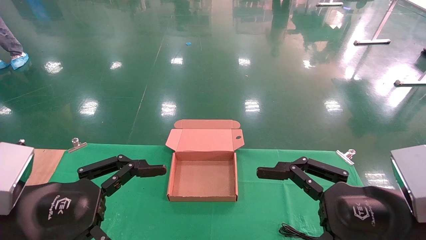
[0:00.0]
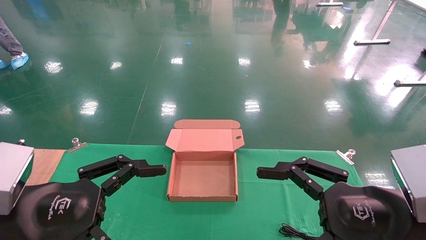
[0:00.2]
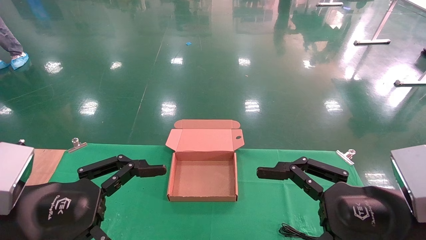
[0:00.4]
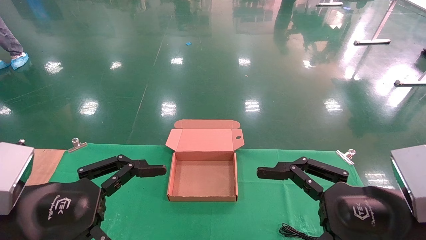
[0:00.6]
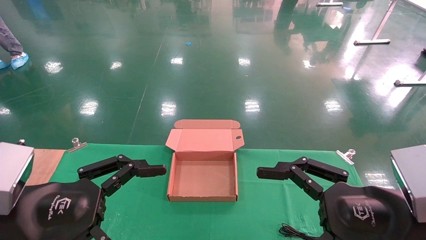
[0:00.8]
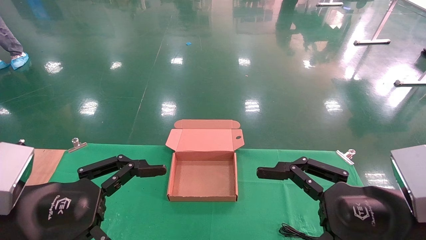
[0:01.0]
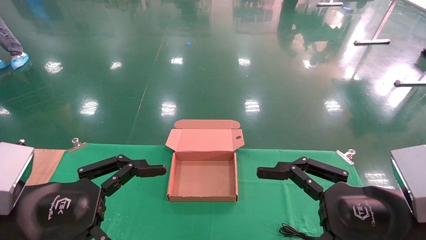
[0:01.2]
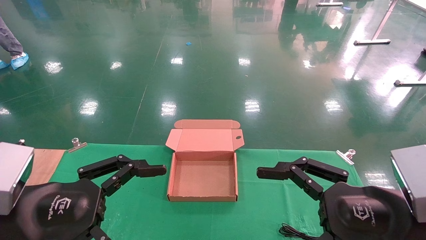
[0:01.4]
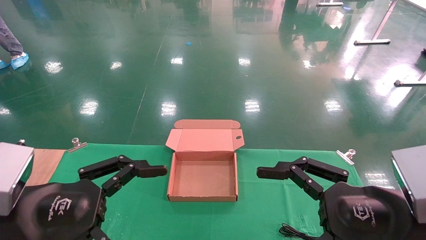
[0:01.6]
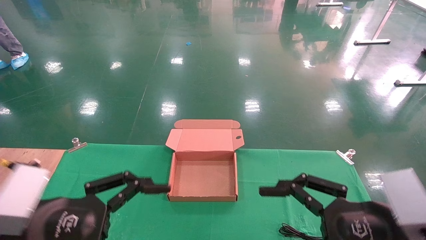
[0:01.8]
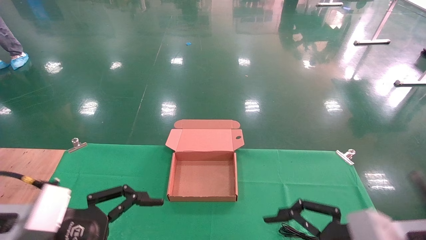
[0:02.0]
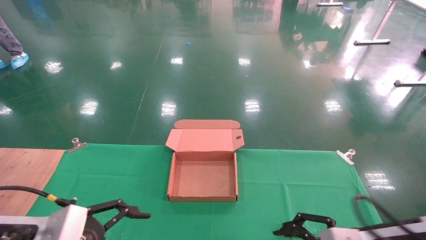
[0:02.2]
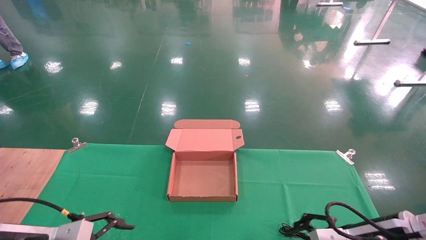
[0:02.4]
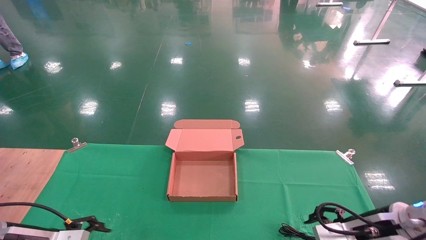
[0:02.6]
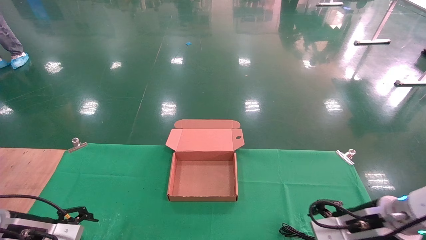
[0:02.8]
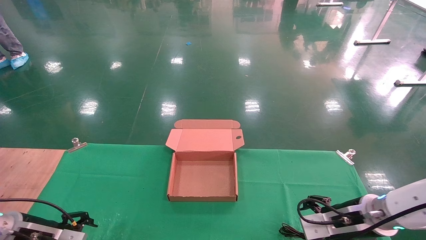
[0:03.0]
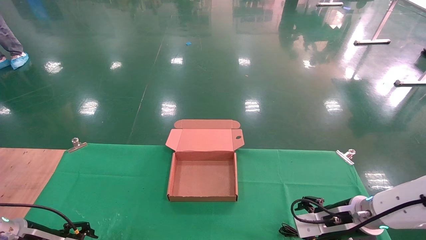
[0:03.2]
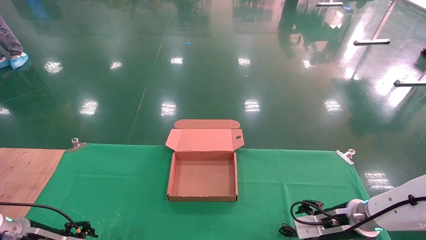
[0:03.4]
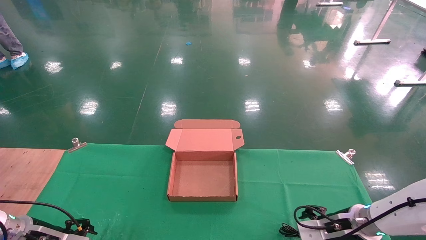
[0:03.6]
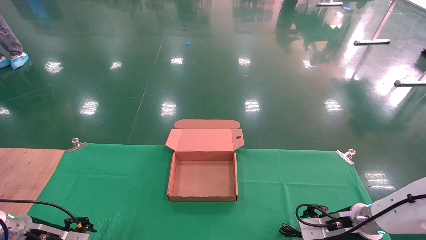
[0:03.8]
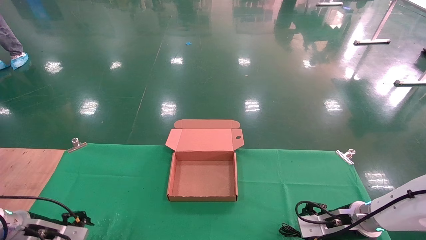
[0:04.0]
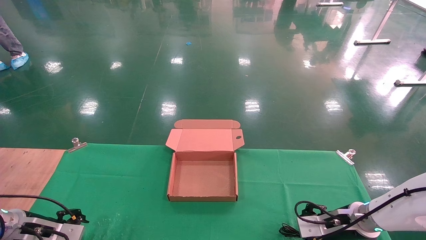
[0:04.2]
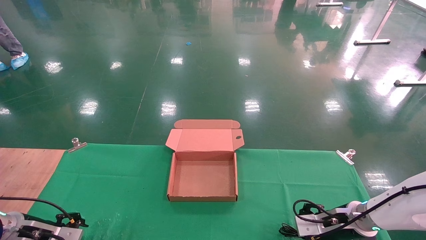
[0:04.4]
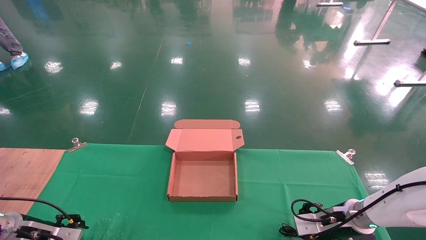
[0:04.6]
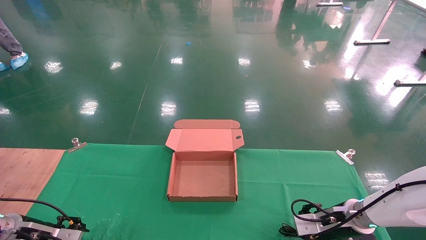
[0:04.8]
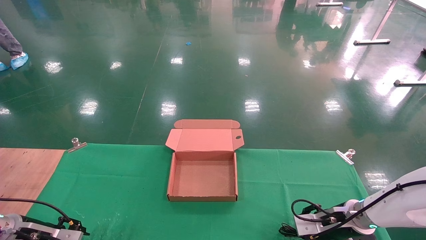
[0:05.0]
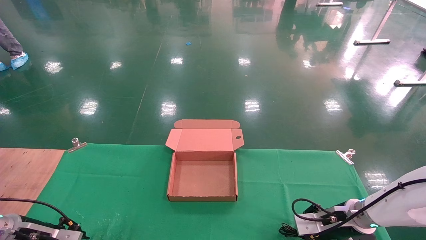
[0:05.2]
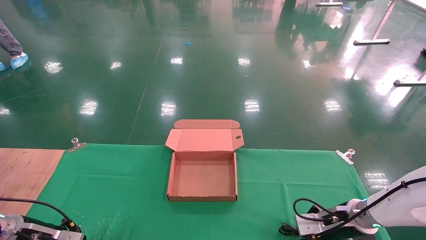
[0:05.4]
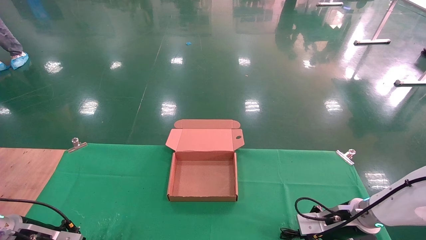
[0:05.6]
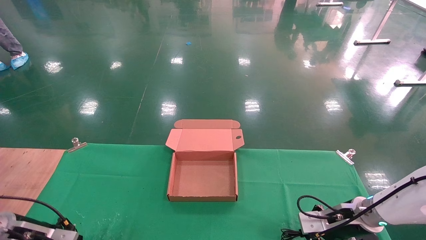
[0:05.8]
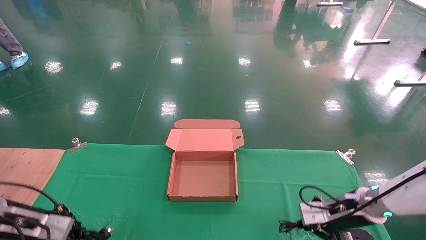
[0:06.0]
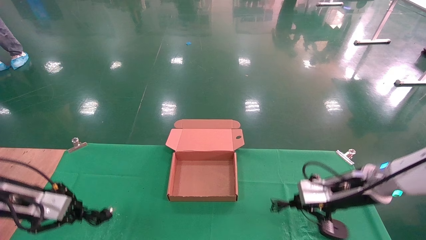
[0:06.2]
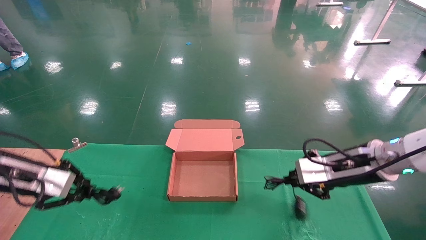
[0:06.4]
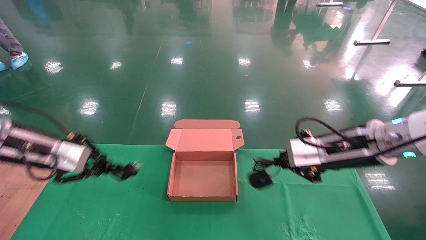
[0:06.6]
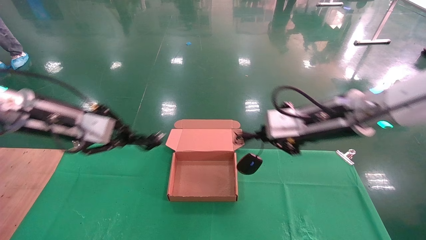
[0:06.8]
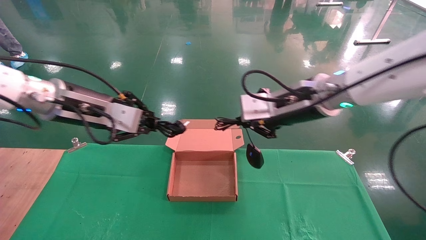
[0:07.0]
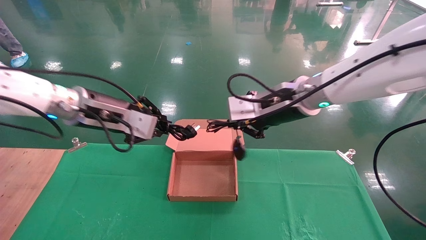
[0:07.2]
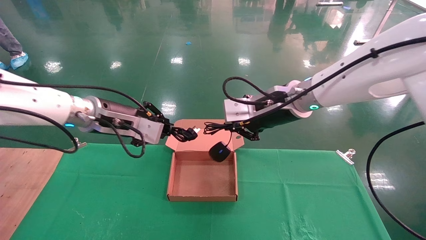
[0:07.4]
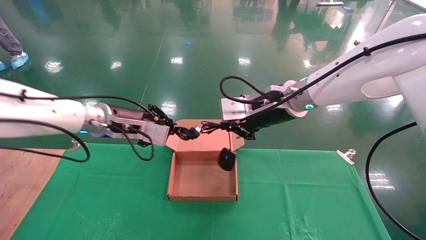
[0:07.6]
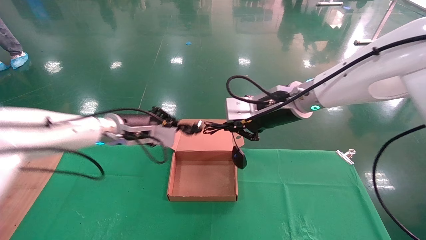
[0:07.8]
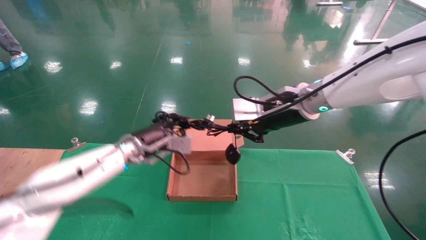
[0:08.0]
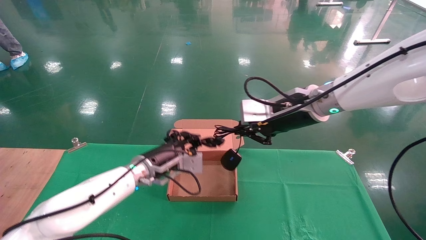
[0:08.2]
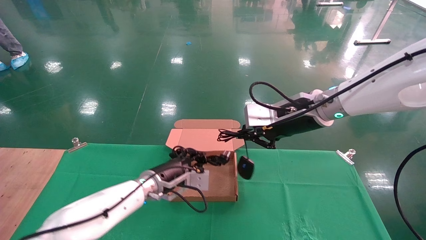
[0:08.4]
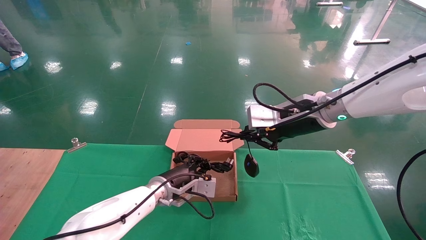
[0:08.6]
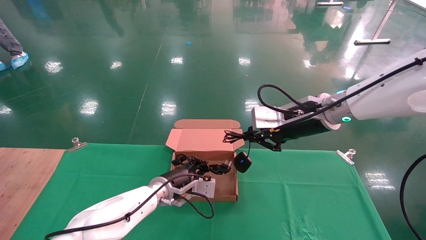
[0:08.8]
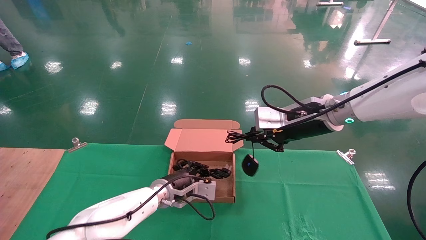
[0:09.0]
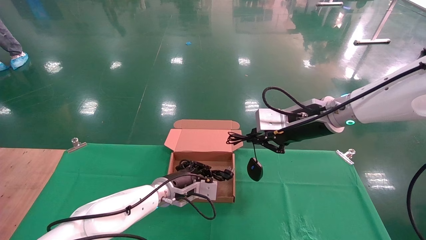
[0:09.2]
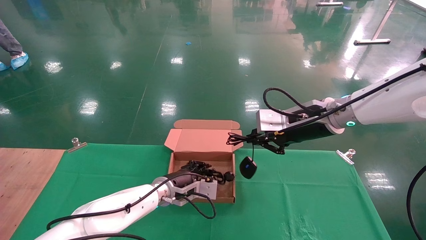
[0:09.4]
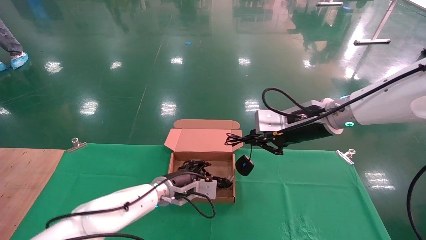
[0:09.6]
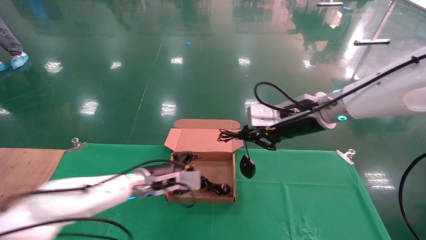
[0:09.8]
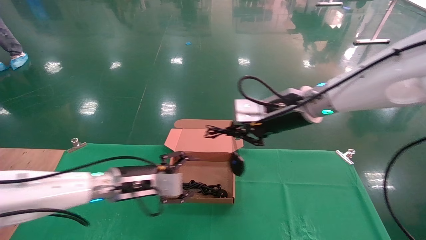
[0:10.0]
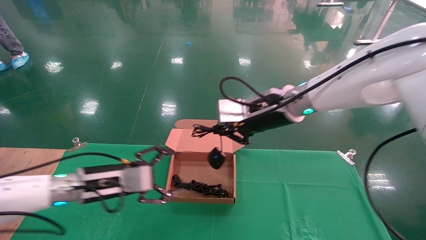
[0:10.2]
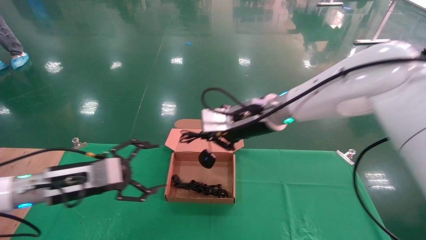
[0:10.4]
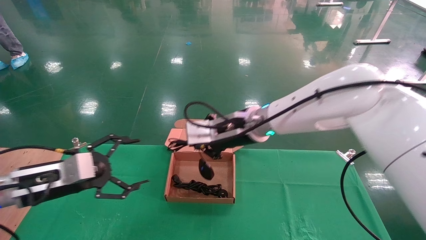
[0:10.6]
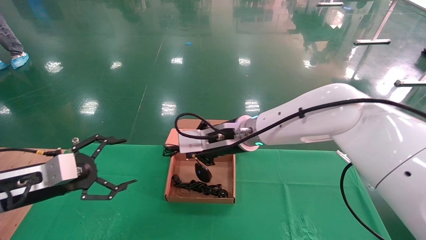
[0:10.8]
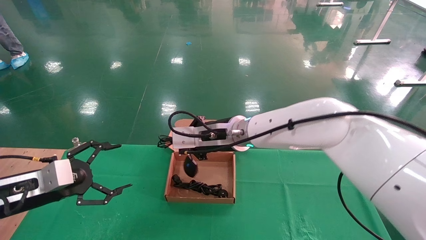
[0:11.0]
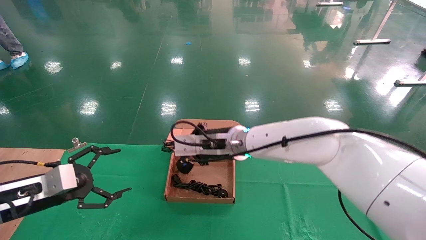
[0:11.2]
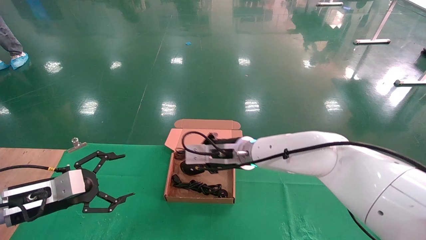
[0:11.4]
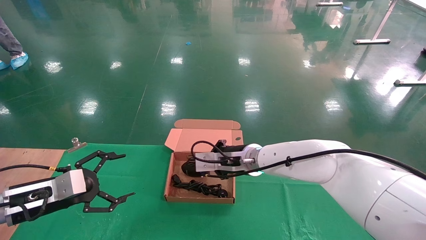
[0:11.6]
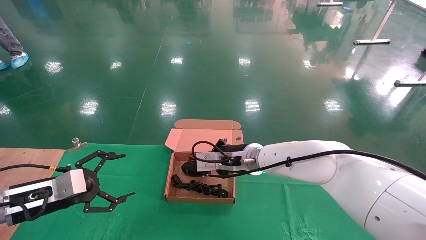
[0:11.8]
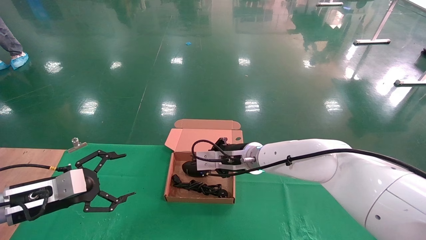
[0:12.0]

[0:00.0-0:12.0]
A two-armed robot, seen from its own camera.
Step, 0:02.0 to 0:06.6: Grab and lift both the mouse and power cord from the accessory packaging area at the same time.
0:00.0 to 0:01.6: Both grippers stay about where they are.
0:01.6 to 0:03.0: The left gripper is displaced forward, downward and to the left by about 25 cm; the right gripper heads forward and downward, covering roughly 20 cm.
0:03.0 to 0:04.4: The right gripper travels forward and downward by roughly 10 cm; the left gripper shifts by roughly 5 cm.
0:04.4 to 0:06.0: The grippers both shift upward by roughly 5 cm. The left gripper closes its fingers. The right gripper closes up.
0:06.0 to 0:07.6: The right gripper shifts approximately 25 cm upward and to the left, while the left gripper heads to the right, upward and forward, covering about 25 cm.
0:07.6 to 0:09.0: The right gripper shifts roughly 5 cm to the right. Meanwhile the left gripper shifts roughly 20 cm downward and to the right.
0:09.0 to 0:10.4: The left gripper is displaced to the left, backward and upward by about 25 cm, and opens its fingers, while the right gripper goes roughly 10 cm to the left.
0:10.4 to 0:12.0: The left gripper goes approximately 10 cm to the left; the right gripper travels downward by about 10 cm.

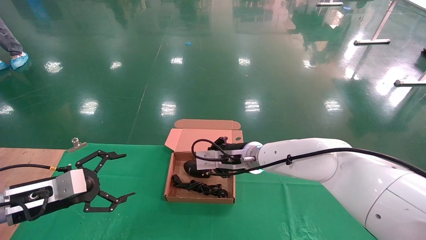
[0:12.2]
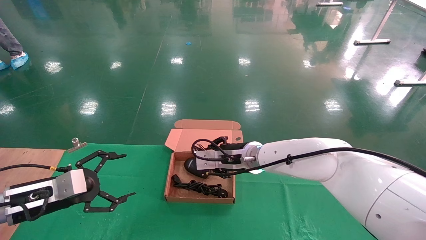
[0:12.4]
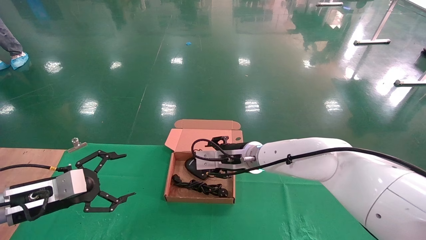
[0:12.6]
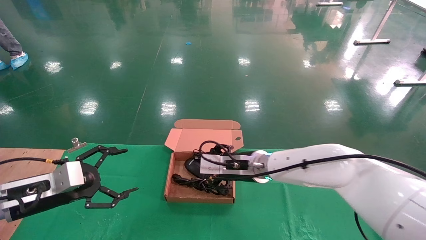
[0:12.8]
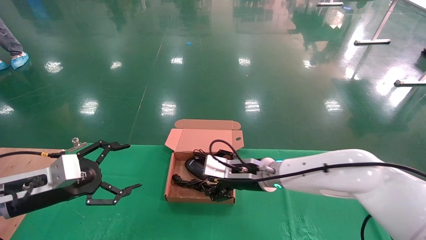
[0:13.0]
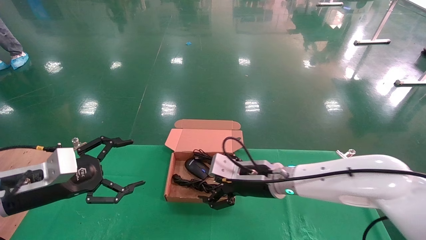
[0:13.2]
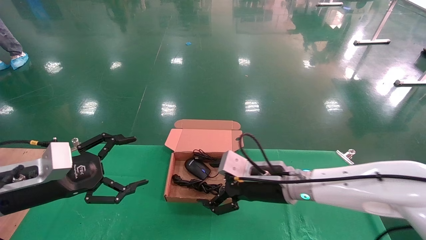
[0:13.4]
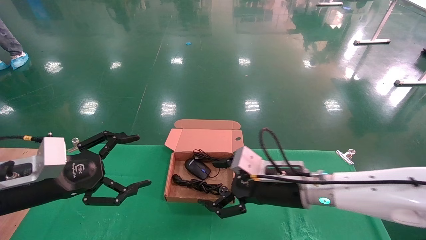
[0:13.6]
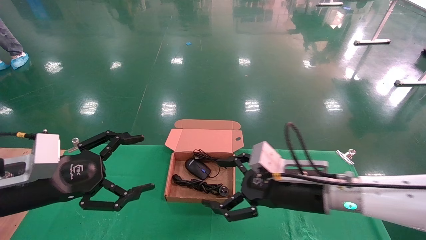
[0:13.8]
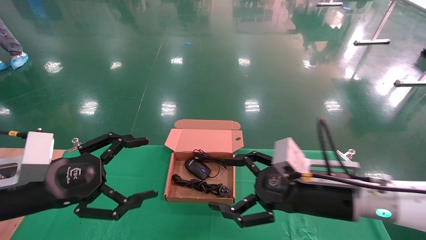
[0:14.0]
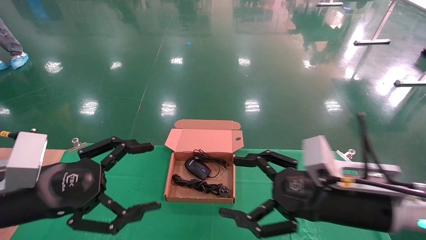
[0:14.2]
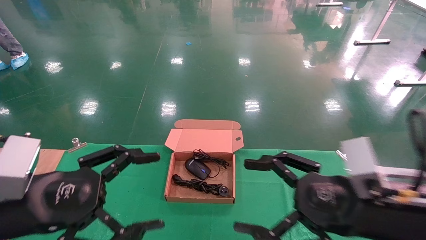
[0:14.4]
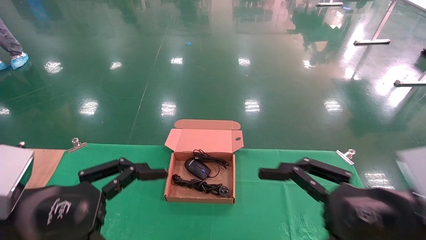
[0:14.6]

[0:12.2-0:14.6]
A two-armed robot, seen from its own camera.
0:12.2 to 0:13.4: The left gripper is displaced upward by about 5 cm. The right gripper travels backward and to the right by approximately 10 cm, and opens.
0:13.4 to 0:14.6: The left gripper heads backward and to the right, covering some 15 cm. The right gripper goes some 25 cm backward and to the right.
